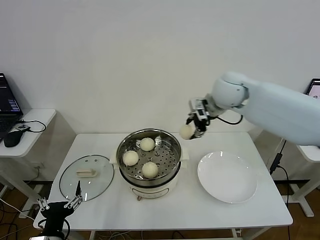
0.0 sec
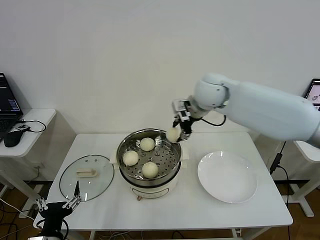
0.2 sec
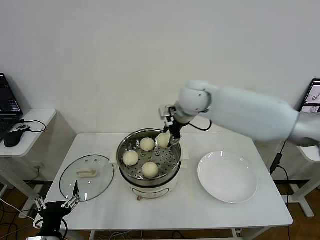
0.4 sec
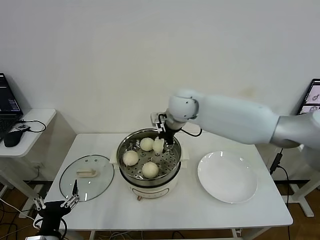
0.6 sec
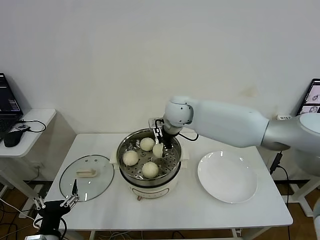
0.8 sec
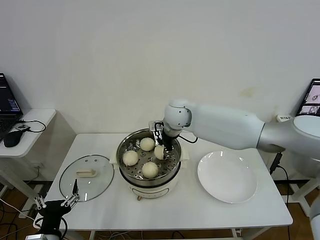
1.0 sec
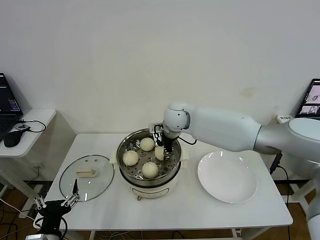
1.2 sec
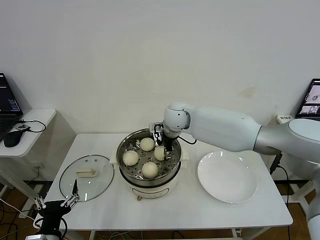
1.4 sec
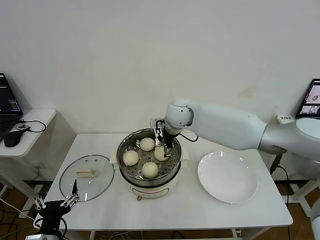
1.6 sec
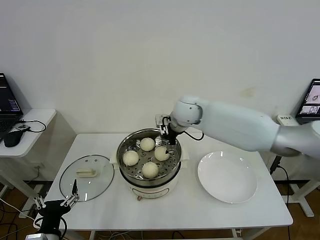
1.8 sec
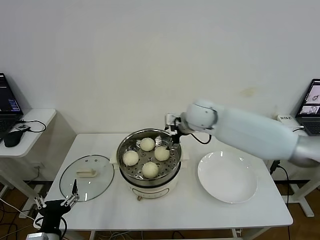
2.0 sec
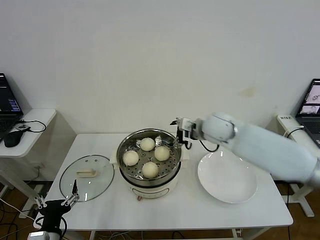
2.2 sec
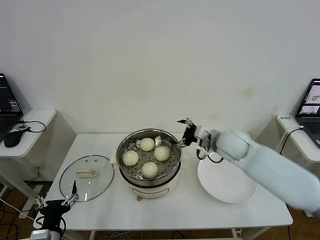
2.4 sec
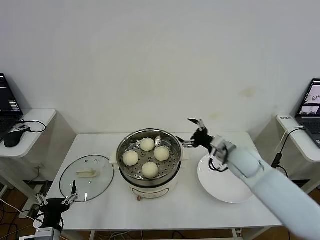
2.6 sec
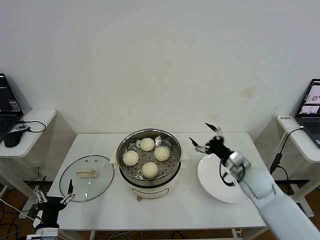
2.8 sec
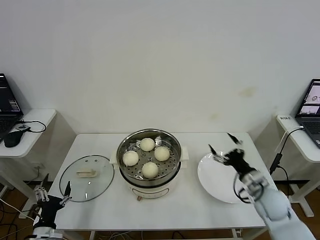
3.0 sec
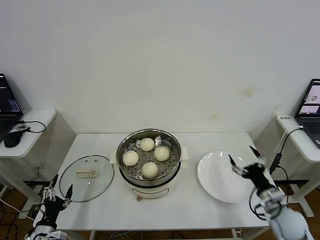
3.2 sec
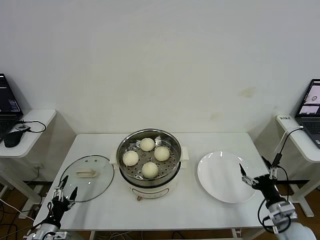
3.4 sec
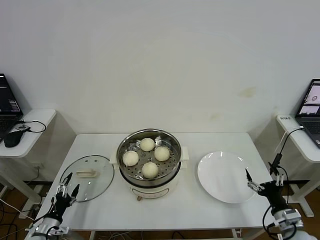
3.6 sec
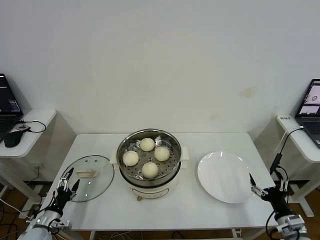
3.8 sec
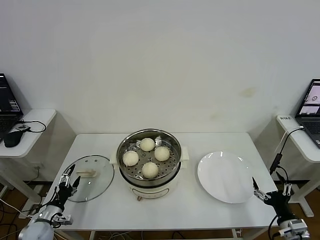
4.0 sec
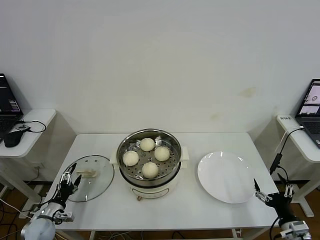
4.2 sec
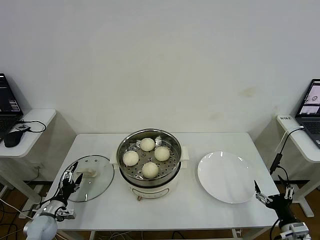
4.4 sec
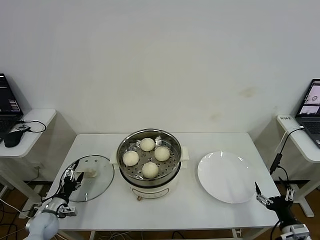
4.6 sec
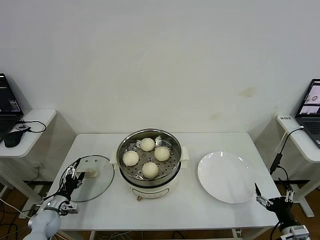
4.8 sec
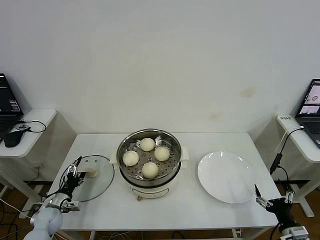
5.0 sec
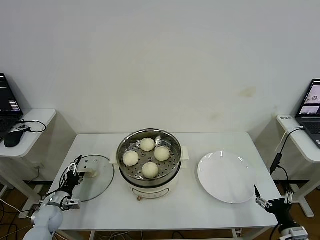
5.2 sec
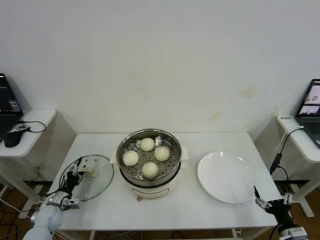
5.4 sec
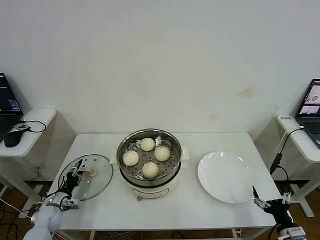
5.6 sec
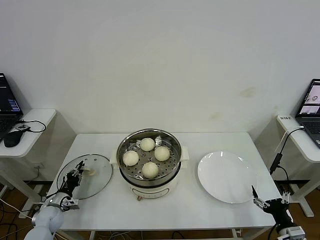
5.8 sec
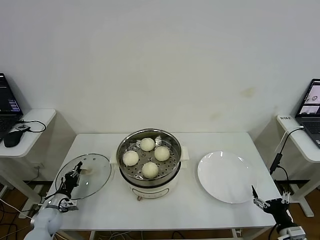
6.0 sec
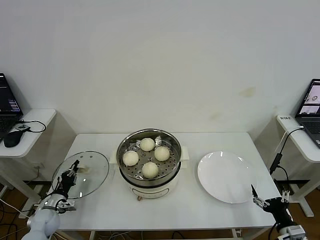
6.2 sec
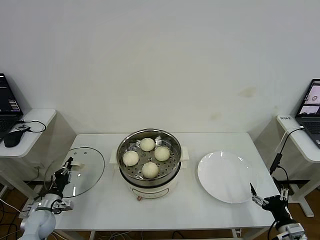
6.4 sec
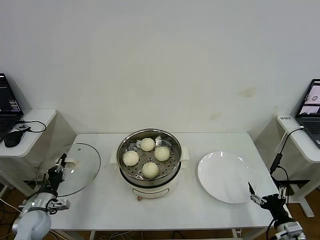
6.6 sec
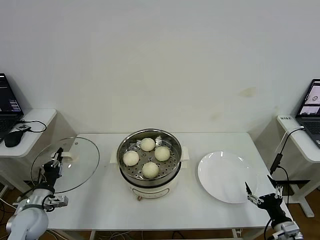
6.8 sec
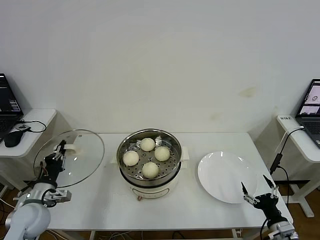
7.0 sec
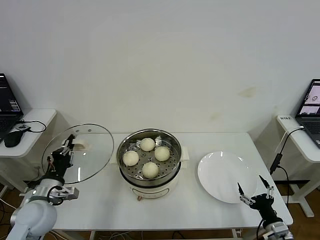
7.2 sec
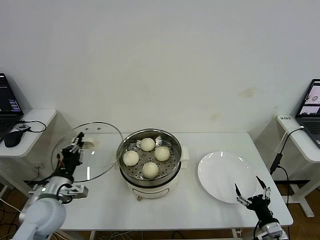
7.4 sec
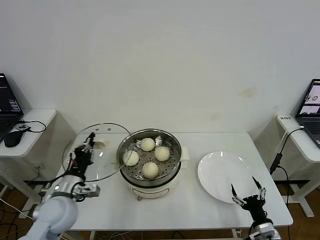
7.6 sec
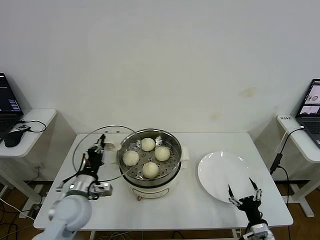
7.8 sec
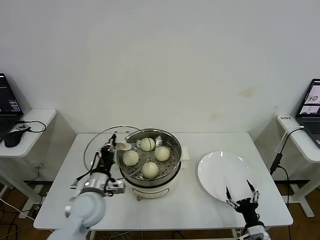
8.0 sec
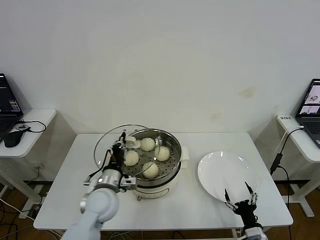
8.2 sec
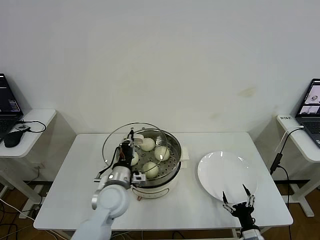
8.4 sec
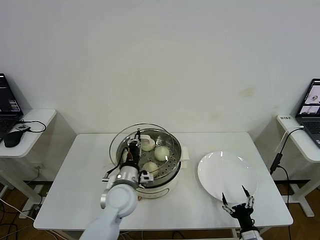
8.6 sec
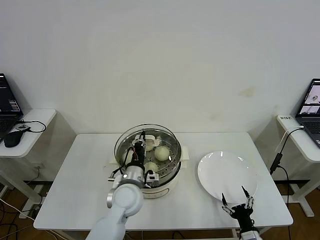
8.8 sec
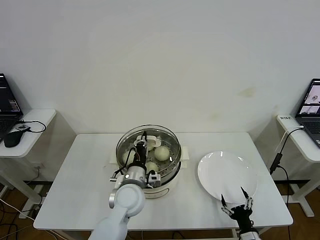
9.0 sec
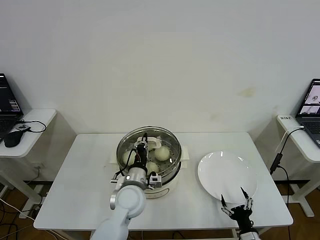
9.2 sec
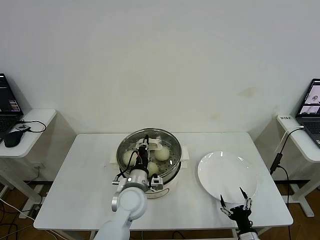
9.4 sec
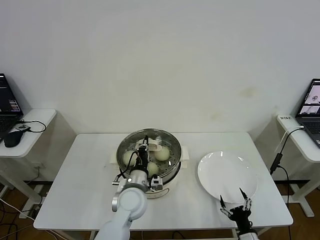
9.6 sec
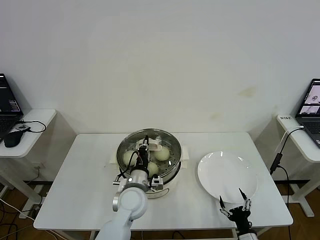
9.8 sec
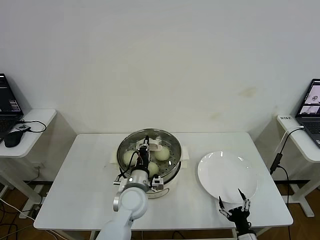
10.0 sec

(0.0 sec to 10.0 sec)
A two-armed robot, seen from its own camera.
Step, 0.0 sec - 1.4 sec: Place the baozi on the steamer with right gripper.
Step, 1.8 sec - 6.0 sec: Grasp the pot lid with left gripper.
0.0 sec - 1.4 sec: The right gripper heads to the left and downward, covering roughly 15 cm, and opens its fingers.
1.4 sec - 2.8 sec: The right gripper moves to the right, backward and downward, approximately 30 cm. Meanwhile the left gripper heads downward, covering approximately 5 cm.
2.8 sec - 4.2 sec: The right gripper travels backward, to the right and downward by some 25 cm. Meanwhile the left gripper shifts about 20 cm forward, to the left and downward.
4.2 sec - 5.8 sec: The left gripper goes roughly 5 cm forward, and closes.
5.8 sec - 7.2 sec: The left gripper is displaced upward and to the right by some 20 cm.
7.2 sec - 8.6 sec: The left gripper shifts some 25 cm to the right. Meanwhile the right gripper heads to the left and downward, covering approximately 10 cm.
8.6 sec - 10.0 sec: The grippers make only small movements.

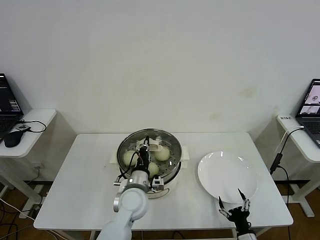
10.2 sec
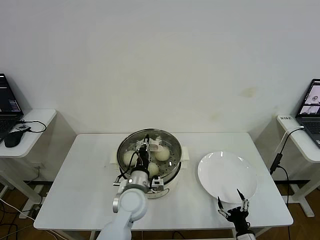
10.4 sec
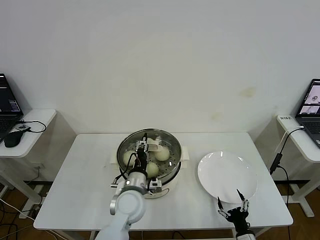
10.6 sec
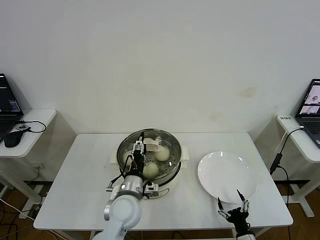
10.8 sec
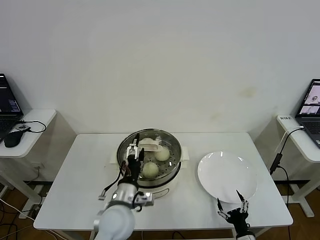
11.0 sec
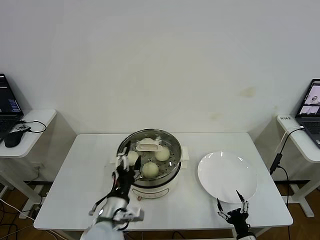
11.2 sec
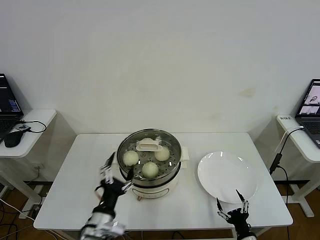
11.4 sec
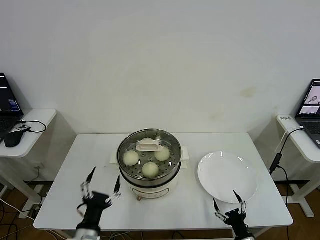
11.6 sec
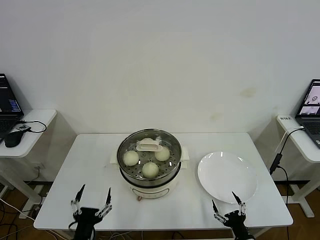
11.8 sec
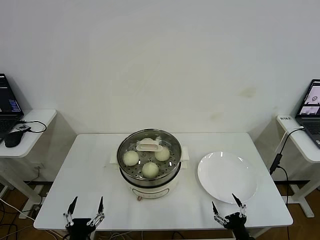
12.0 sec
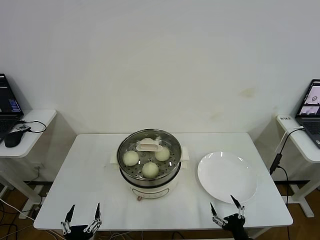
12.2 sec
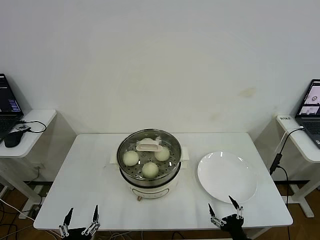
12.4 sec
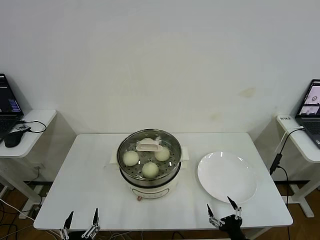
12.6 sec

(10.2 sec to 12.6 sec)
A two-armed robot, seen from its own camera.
10.2 sec - 11.4 sec: The left gripper is displaced backward and to the left by some 15 cm, and opens.
11.4 sec - 12.6 sec: The left gripper heads backward, downward and to the left, covering approximately 20 cm; the right gripper moves upward, some 5 cm.

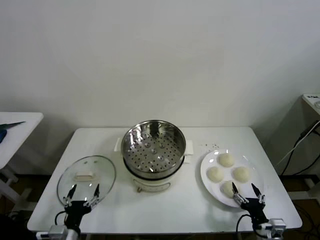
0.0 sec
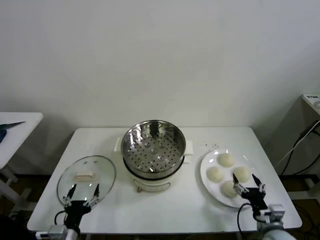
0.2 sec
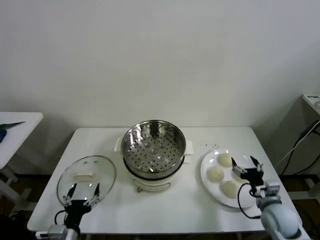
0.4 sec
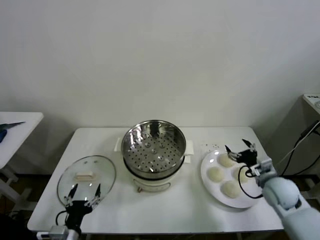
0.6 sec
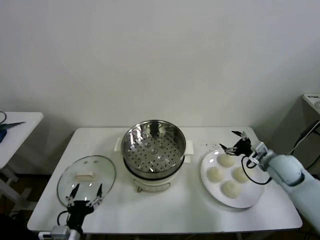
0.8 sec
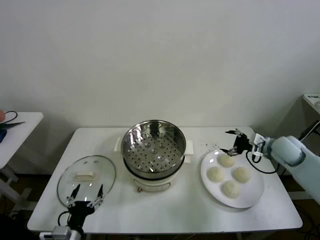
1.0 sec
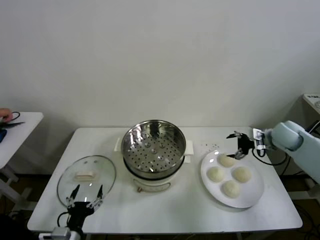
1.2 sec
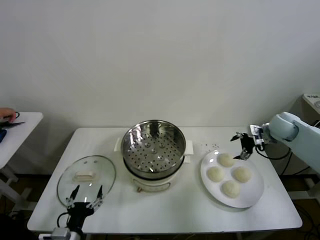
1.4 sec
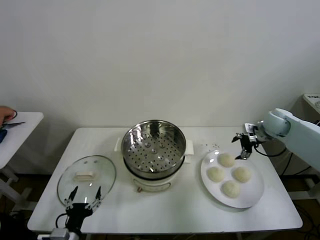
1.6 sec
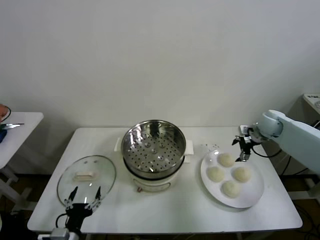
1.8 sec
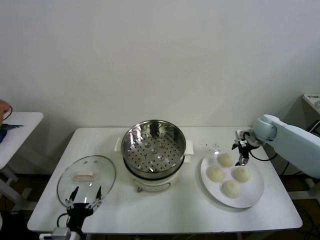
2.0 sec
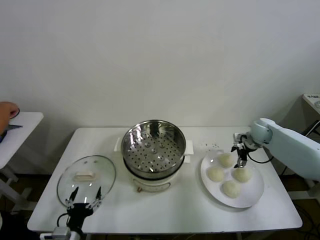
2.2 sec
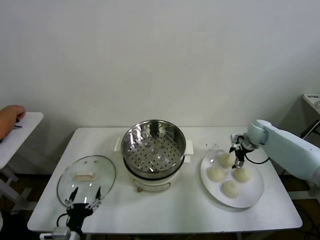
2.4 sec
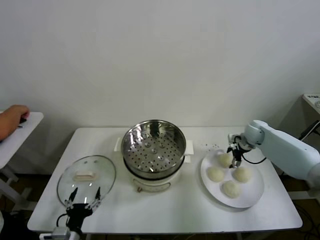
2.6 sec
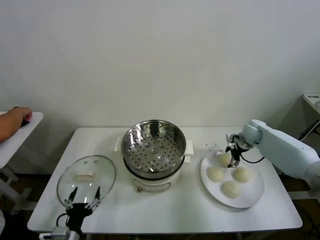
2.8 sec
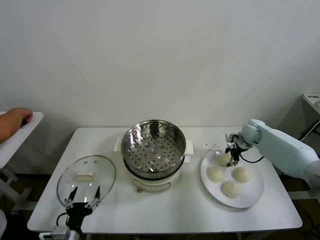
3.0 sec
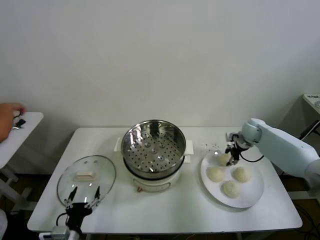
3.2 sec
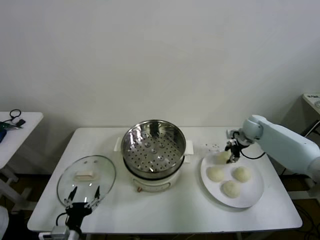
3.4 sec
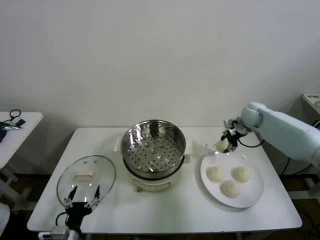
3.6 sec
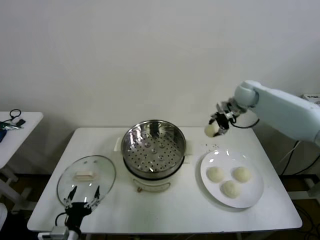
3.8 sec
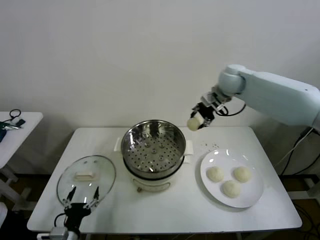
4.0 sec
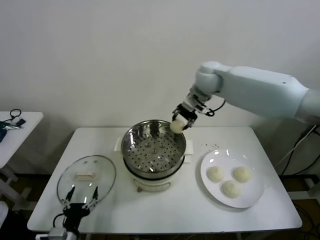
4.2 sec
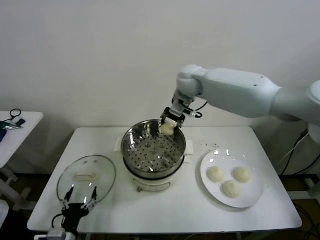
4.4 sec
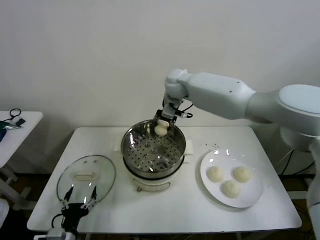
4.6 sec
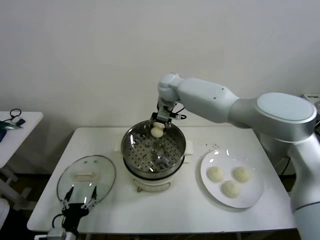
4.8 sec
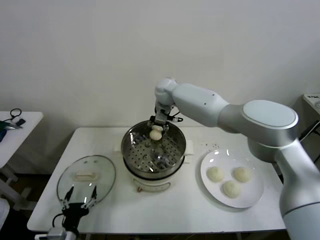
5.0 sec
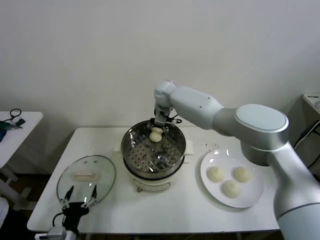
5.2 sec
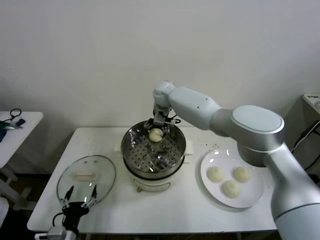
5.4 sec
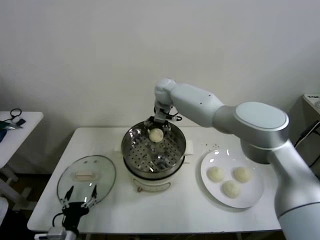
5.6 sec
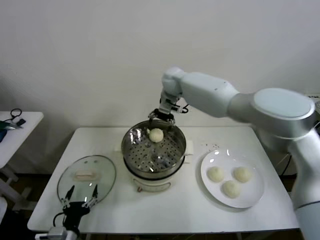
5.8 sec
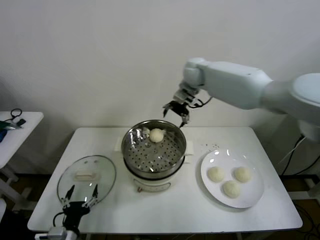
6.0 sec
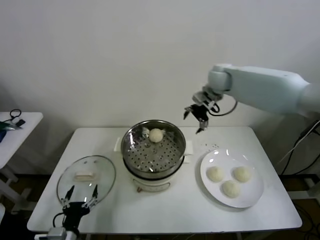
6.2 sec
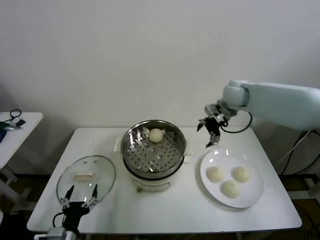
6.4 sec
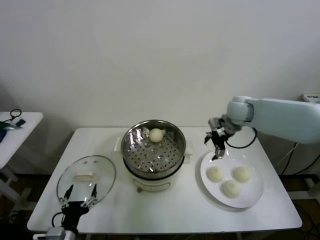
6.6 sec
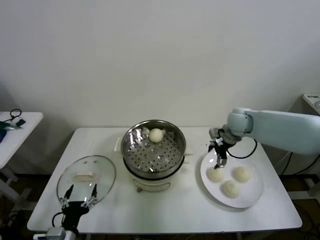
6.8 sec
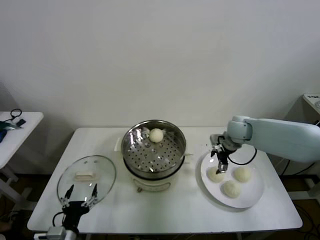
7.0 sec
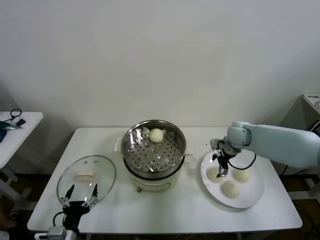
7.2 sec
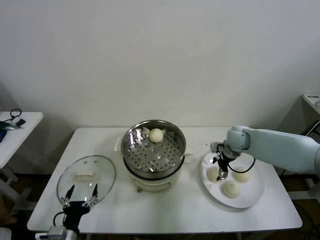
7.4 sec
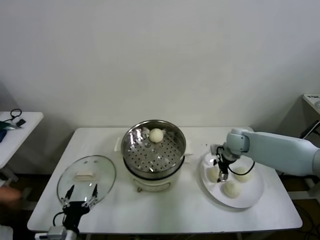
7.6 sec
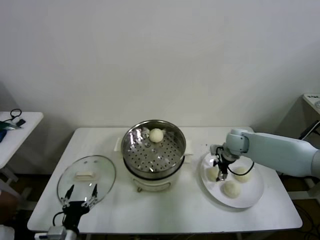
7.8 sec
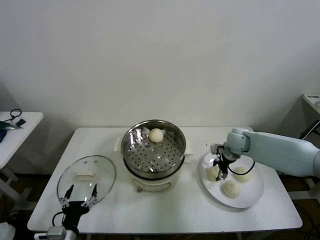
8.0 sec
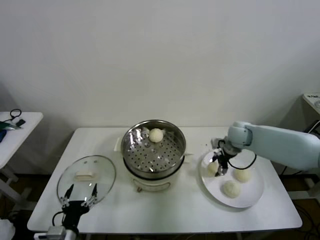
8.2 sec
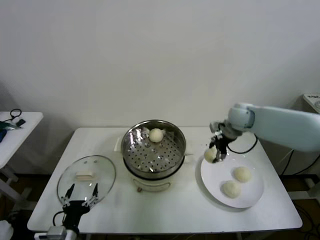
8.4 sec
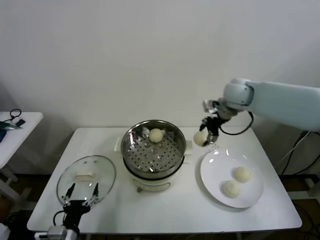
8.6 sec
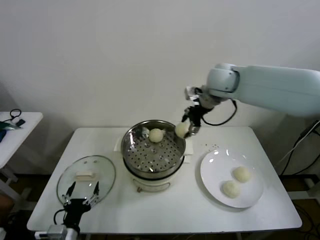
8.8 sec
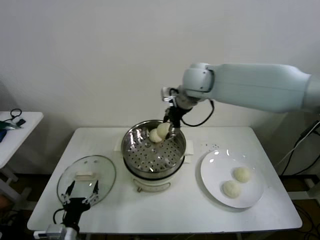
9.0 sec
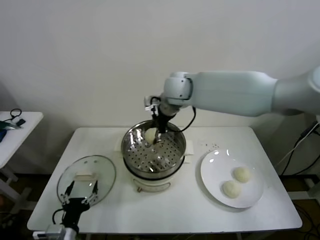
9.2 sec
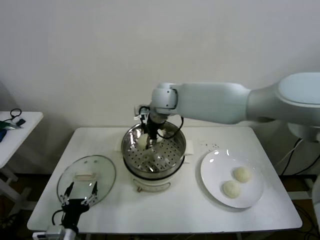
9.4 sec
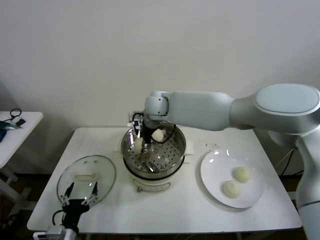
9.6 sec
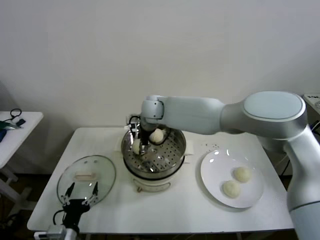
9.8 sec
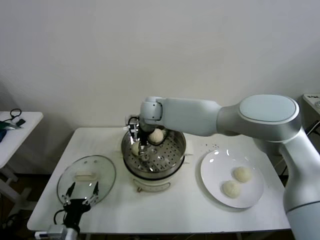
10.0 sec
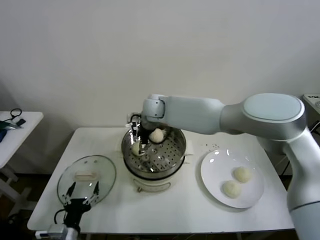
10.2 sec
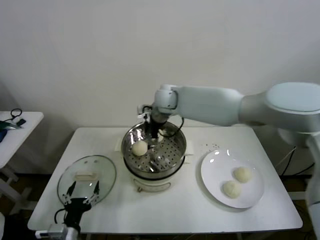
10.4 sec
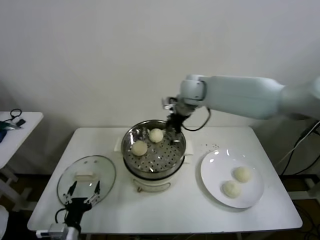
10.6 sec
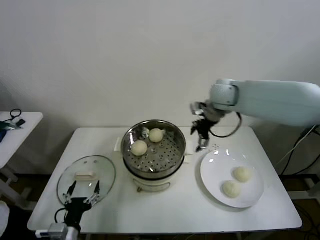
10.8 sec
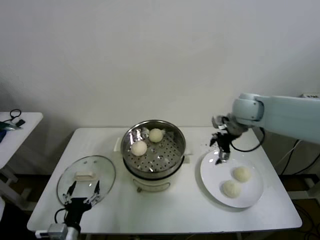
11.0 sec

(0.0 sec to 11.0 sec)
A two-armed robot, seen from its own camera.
Step, 0.0 sec - 3.0 sec: Grasp the baozi in the plate with right gripper.
Step, 3.2 sec - 5.2 sec: Place the baozi on the steamer with right gripper.
Step, 5.6 sec - 7.6 sec: Grasp the baozi in the plate with right gripper.
Step, 7.8 sec - 10.0 sec: Place the baozi on the steamer with right gripper.
1.6 sec - 3.2 sec: The right gripper shifts approximately 5 cm downward, and closes.
3.2 sec - 4.8 sec: The right gripper travels to the left and upward by about 40 cm.
4.8 sec - 6.2 sec: The right gripper heads to the right, covering roughly 20 cm, and opens up.
6.2 sec - 7.8 sec: The right gripper is displaced downward by some 20 cm, and closes up.
7.8 sec - 9.4 sec: The right gripper is displaced to the left and upward by roughly 35 cm.
9.4 sec - 11.0 sec: The right gripper heads to the right, covering roughly 30 cm, and opens up.
